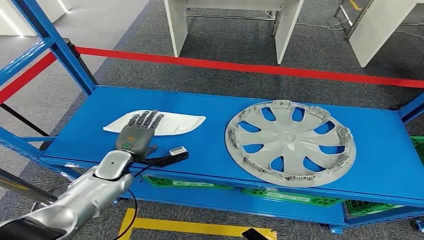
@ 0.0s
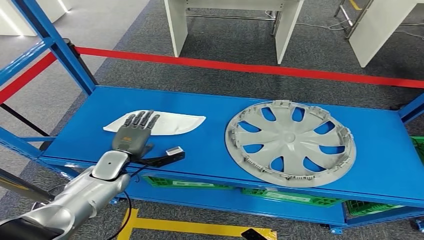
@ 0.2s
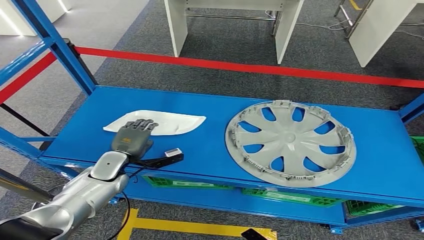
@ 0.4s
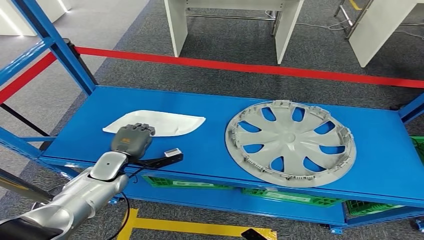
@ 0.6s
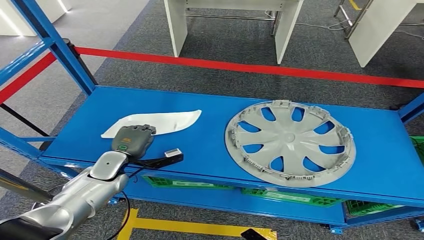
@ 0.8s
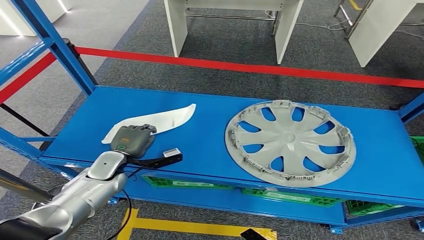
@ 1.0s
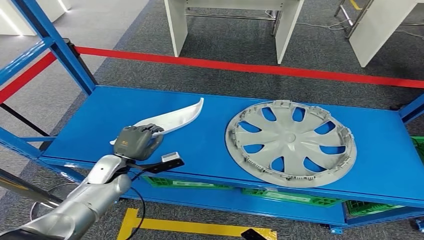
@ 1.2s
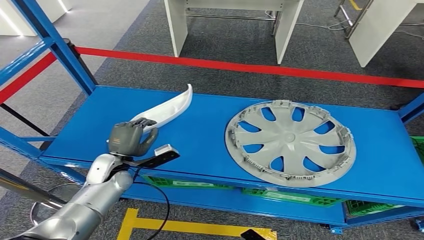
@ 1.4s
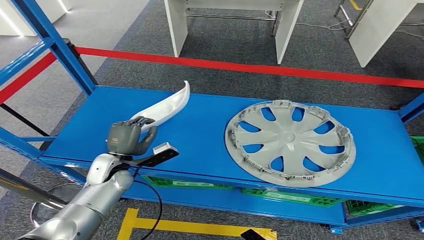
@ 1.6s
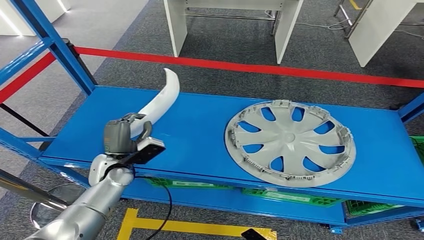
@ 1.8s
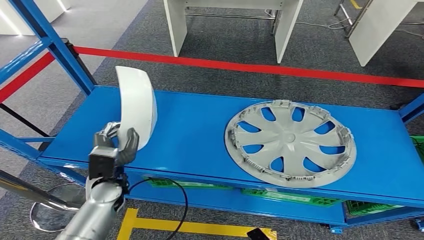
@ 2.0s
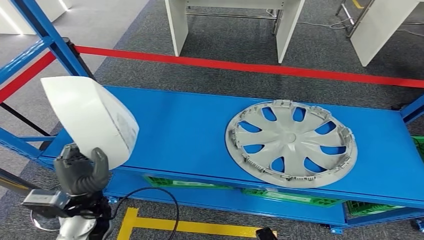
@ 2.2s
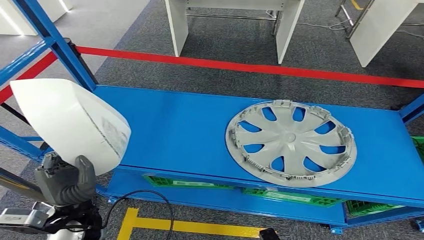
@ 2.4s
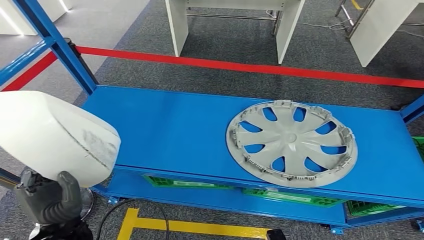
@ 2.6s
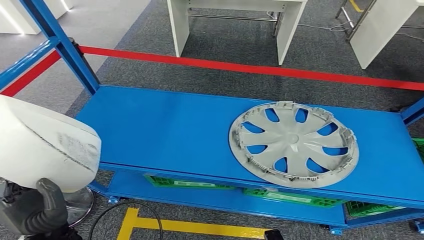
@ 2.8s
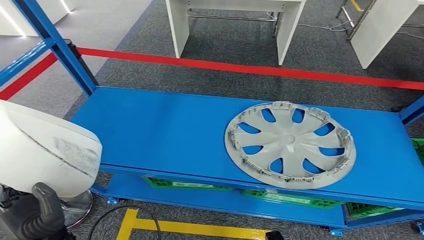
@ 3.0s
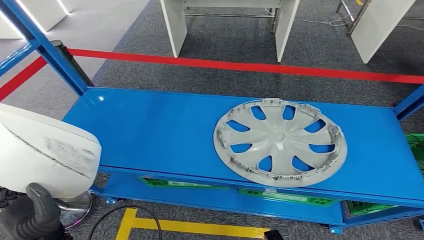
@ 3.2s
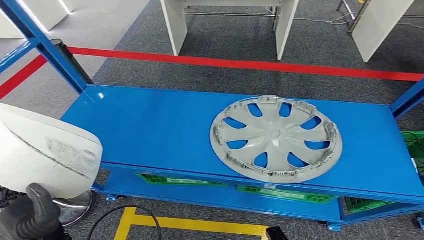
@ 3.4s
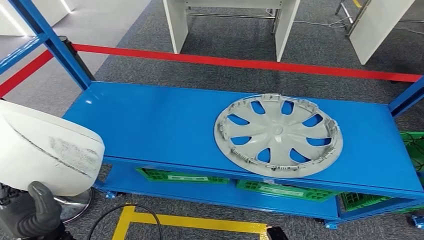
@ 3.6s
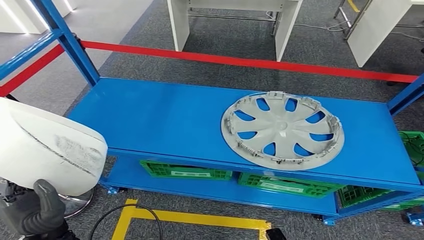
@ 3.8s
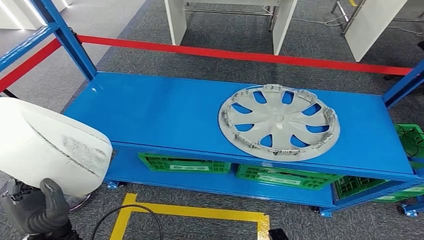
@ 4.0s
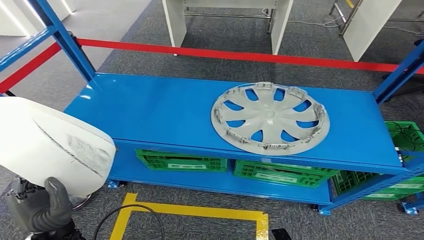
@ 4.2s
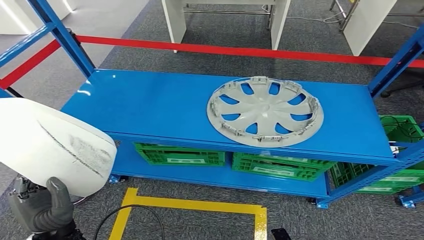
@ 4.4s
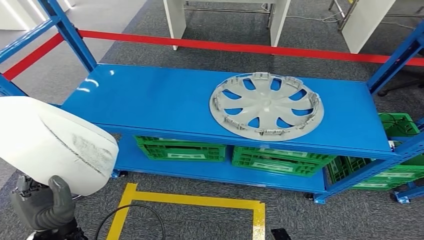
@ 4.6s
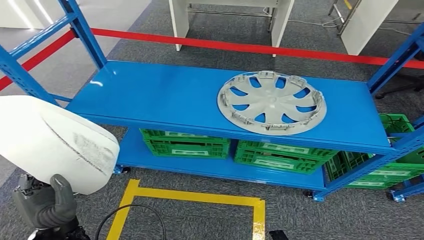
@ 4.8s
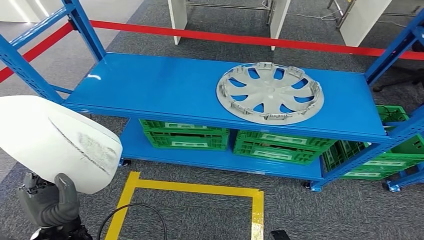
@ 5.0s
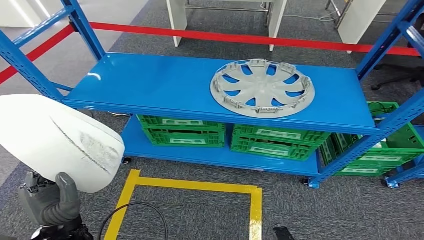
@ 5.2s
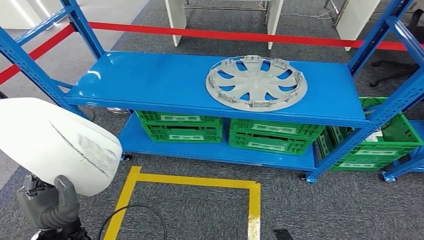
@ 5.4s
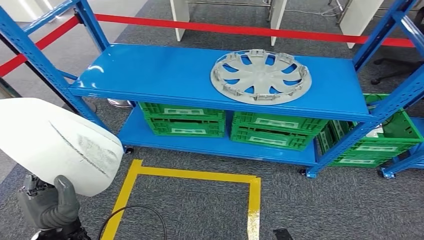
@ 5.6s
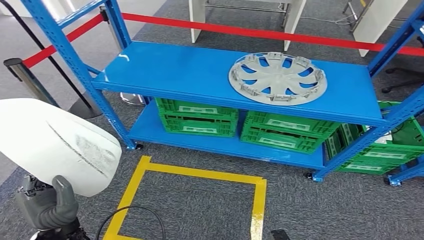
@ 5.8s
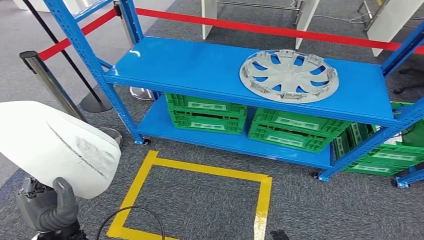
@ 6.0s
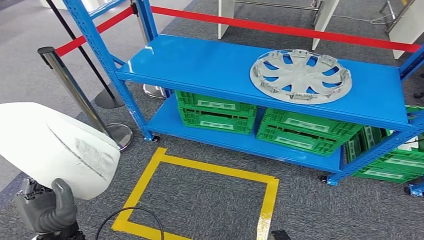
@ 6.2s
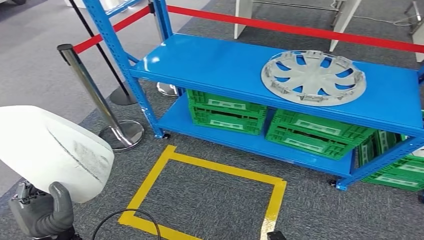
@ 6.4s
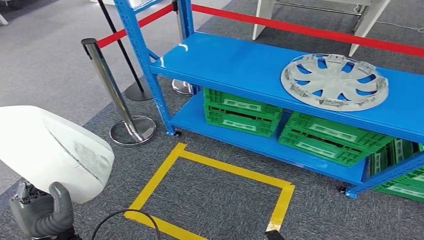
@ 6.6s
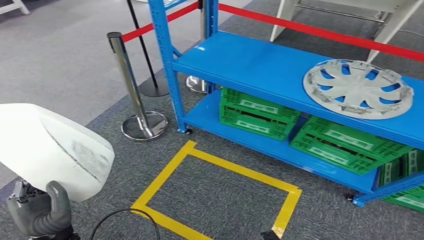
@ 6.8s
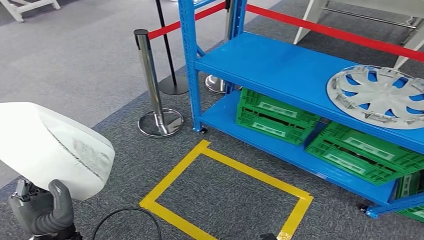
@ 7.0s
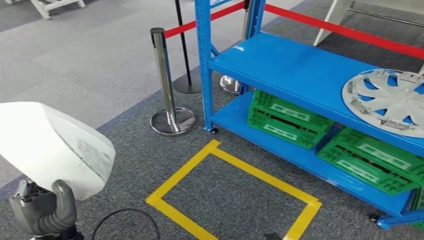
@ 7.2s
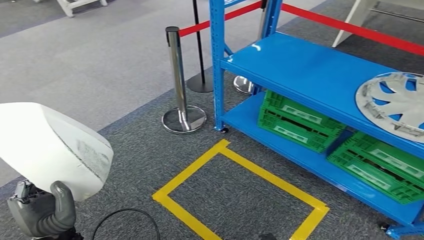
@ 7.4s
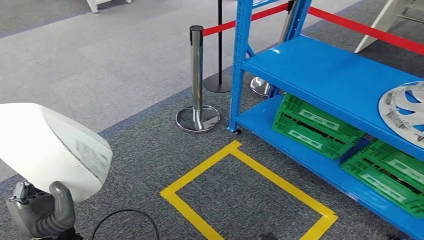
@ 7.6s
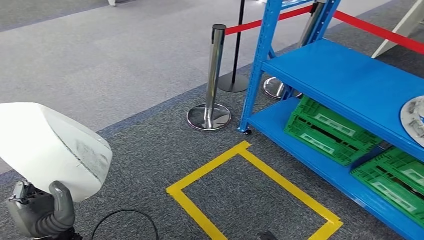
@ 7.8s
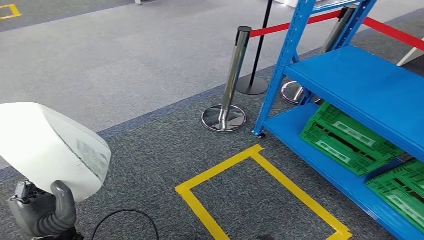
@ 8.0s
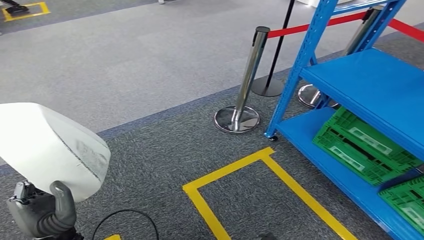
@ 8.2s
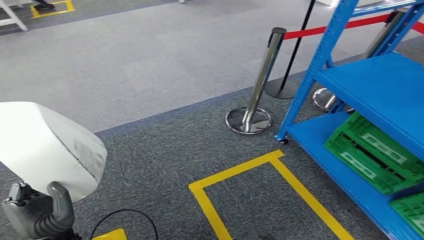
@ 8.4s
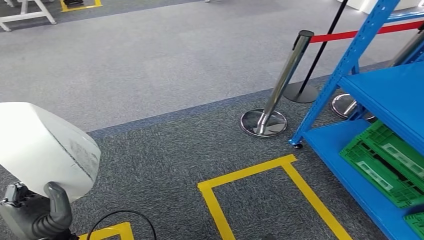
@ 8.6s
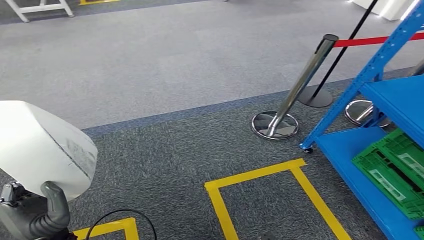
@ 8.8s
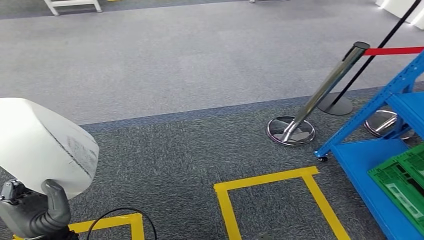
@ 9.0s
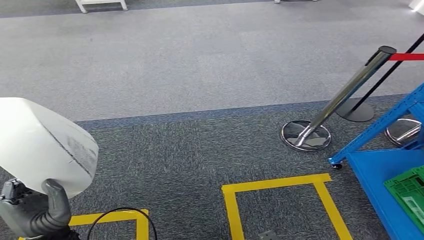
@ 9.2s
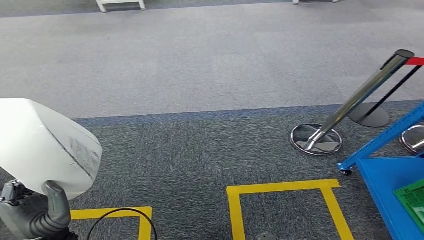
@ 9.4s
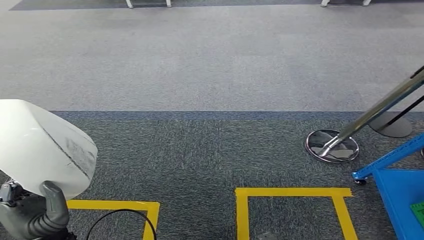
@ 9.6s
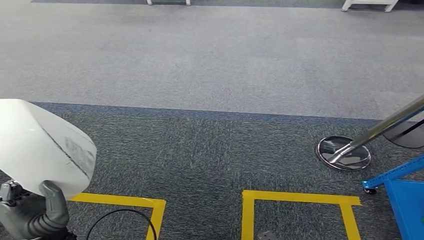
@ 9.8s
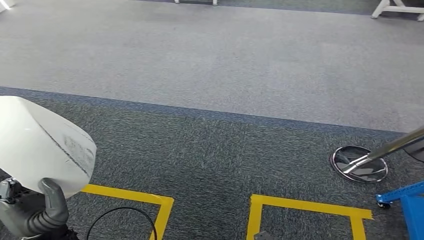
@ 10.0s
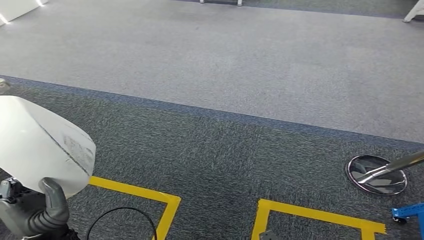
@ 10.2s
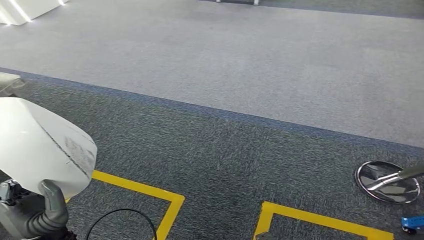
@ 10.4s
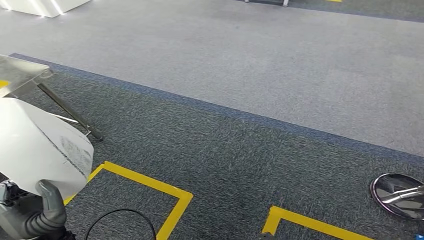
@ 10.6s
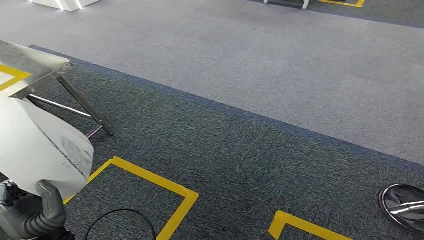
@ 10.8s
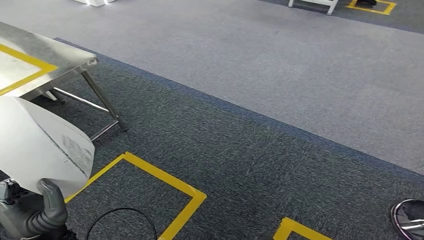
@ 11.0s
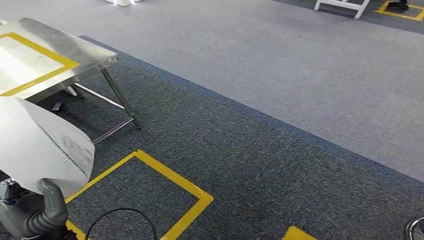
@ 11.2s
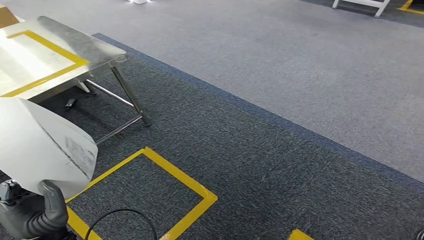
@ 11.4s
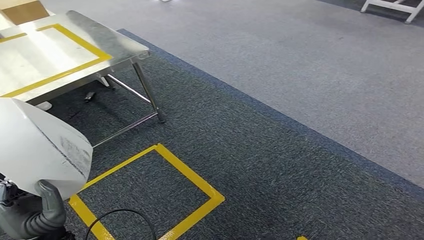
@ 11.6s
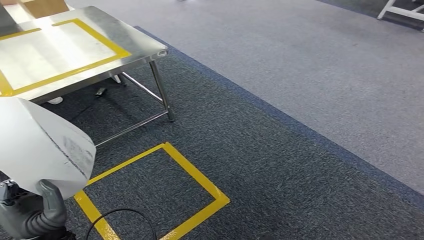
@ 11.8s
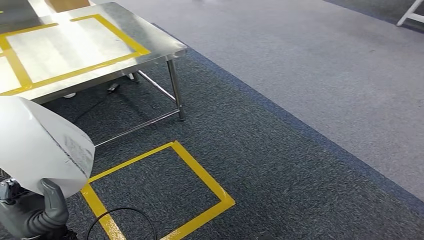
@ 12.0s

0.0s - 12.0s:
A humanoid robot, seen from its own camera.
Step, 0.0s - 2.0s: Take small components from the rack.

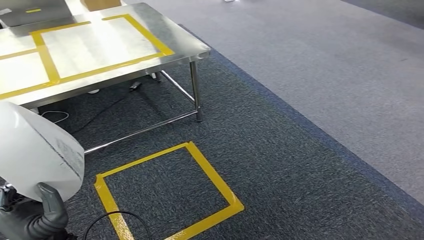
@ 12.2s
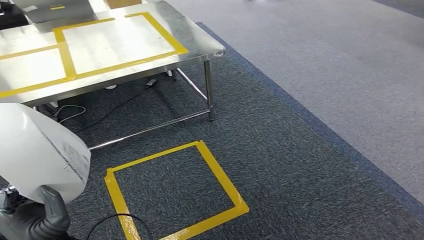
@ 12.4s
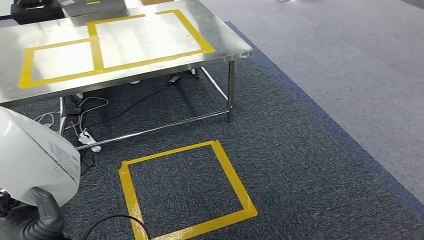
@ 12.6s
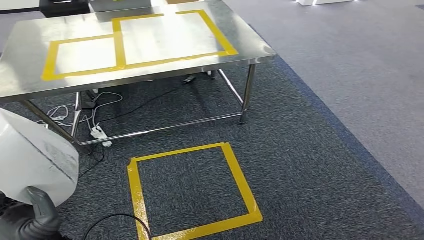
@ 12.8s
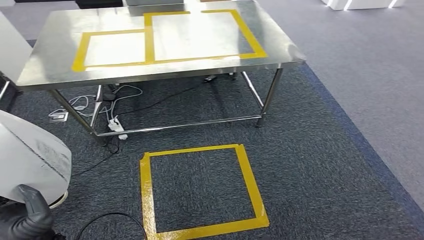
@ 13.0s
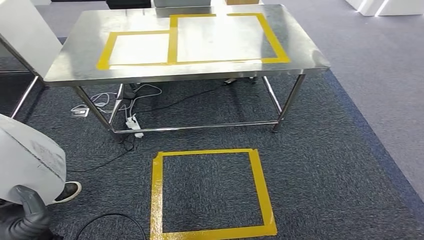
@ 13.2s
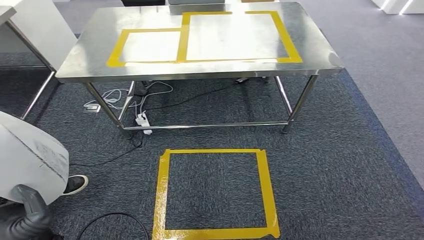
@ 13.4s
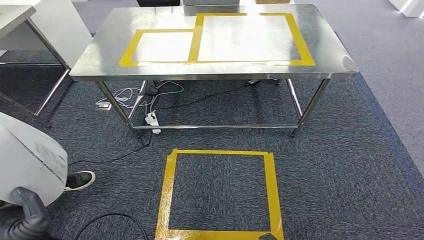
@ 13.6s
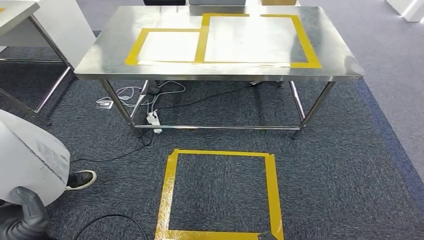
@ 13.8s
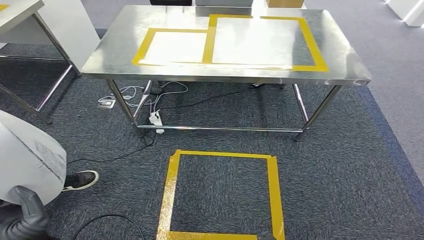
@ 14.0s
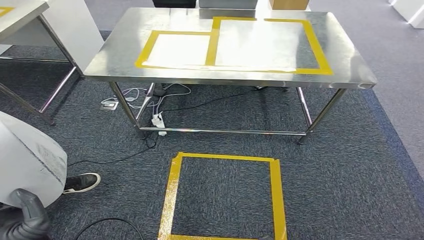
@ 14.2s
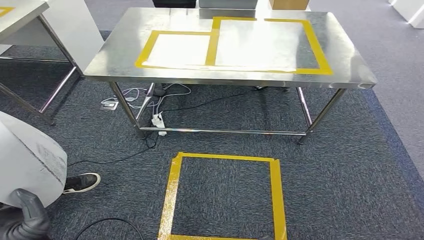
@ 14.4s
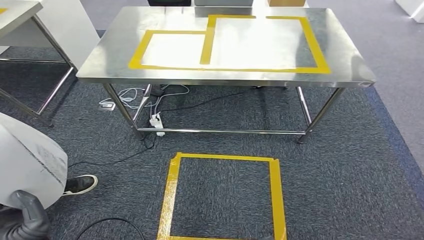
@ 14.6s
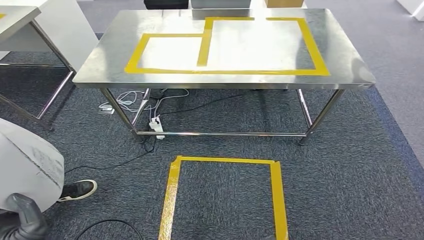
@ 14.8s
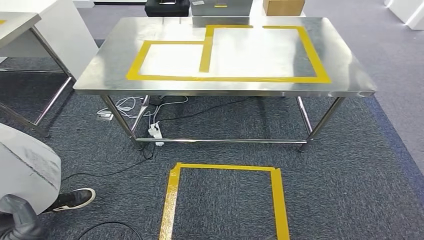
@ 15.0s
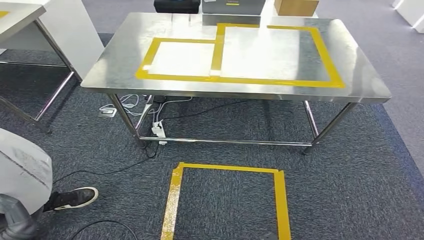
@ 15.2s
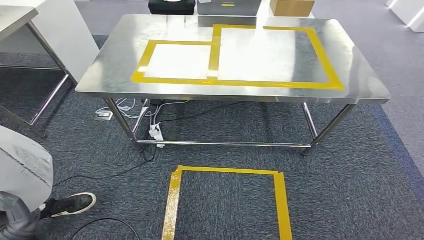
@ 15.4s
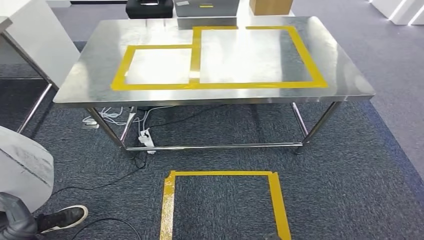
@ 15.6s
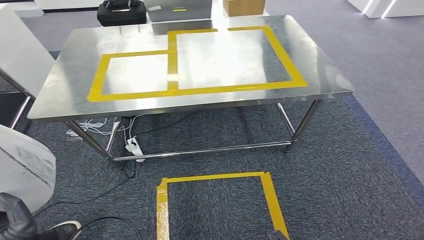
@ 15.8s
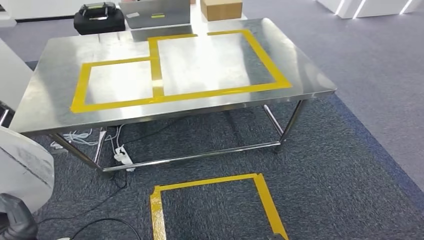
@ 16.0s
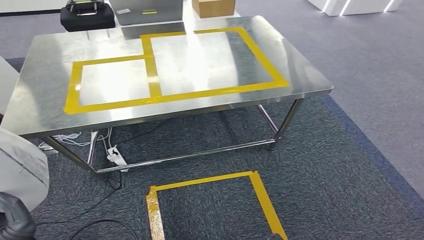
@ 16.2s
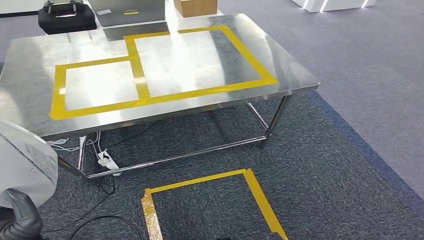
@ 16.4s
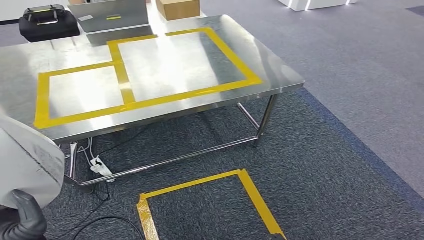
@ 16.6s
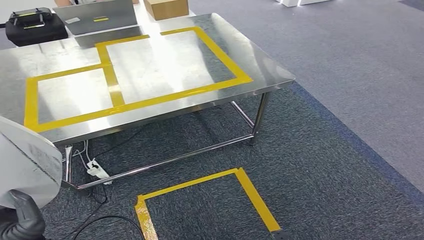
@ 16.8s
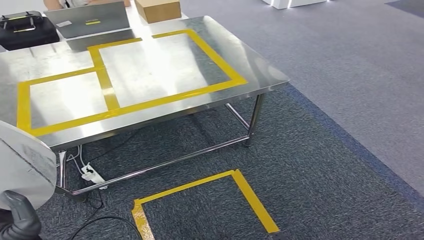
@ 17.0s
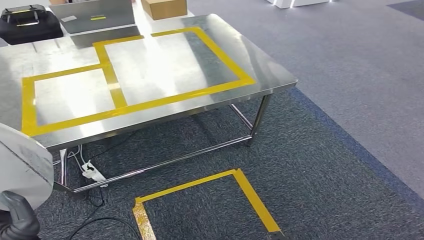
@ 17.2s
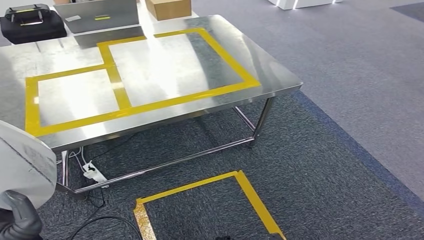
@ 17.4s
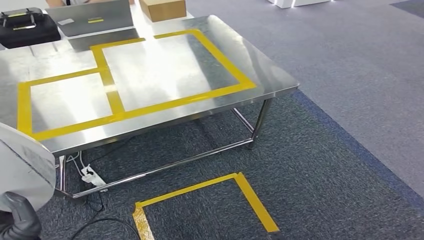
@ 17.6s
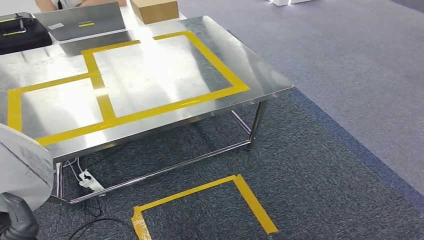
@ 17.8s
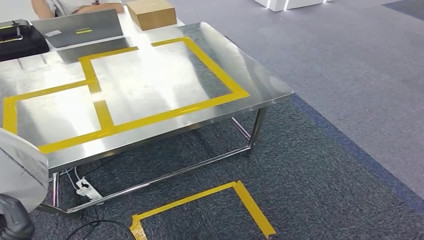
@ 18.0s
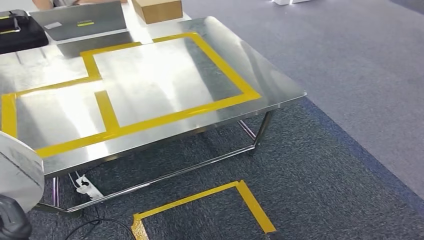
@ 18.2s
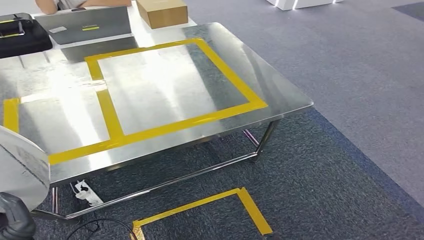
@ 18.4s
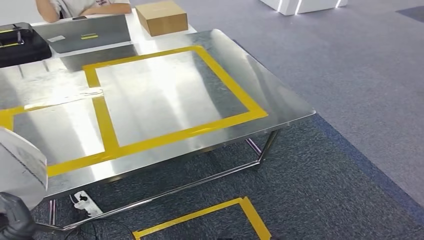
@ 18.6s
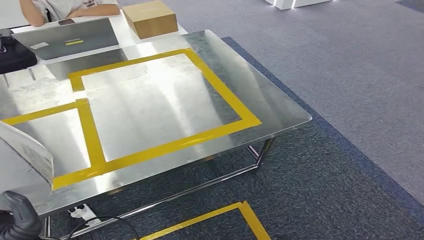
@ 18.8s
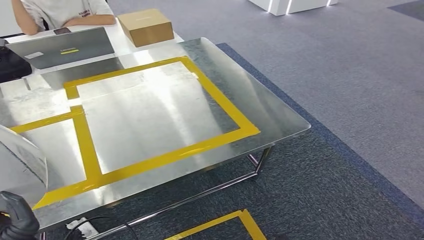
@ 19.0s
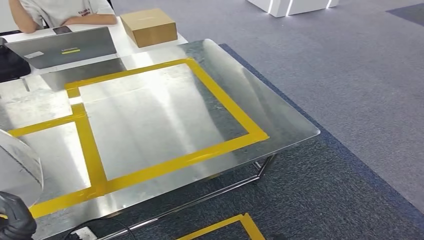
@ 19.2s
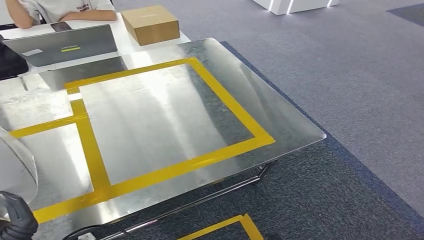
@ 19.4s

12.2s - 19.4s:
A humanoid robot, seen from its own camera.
Step, 12.2s - 17.6s: Move the small parts to the workbench.
